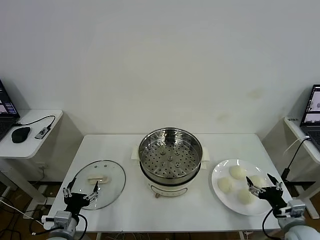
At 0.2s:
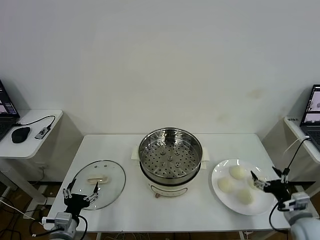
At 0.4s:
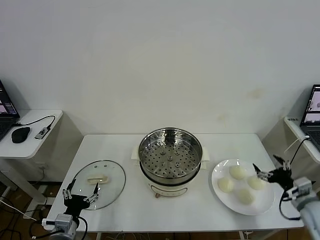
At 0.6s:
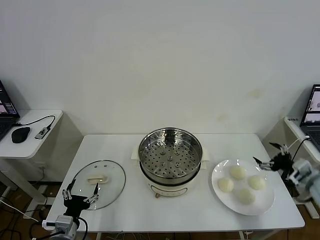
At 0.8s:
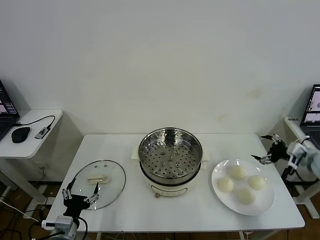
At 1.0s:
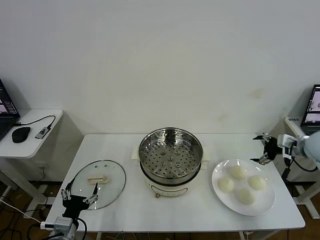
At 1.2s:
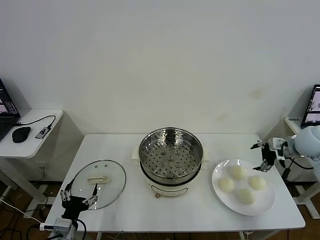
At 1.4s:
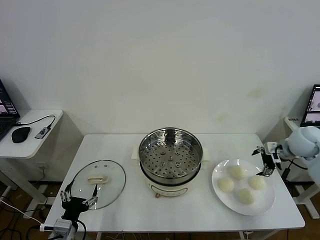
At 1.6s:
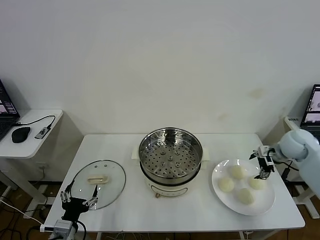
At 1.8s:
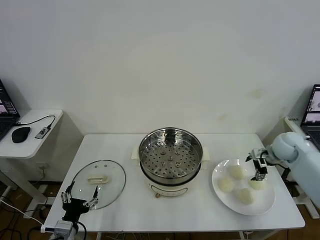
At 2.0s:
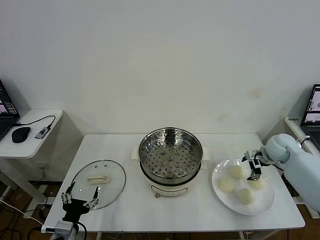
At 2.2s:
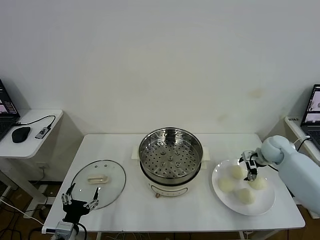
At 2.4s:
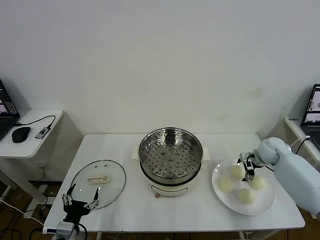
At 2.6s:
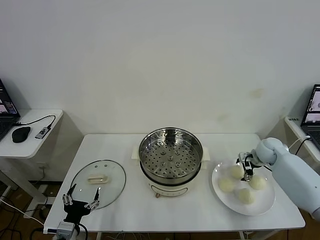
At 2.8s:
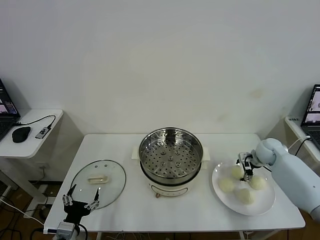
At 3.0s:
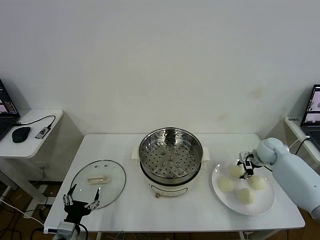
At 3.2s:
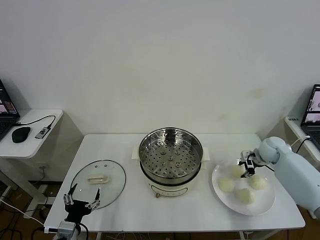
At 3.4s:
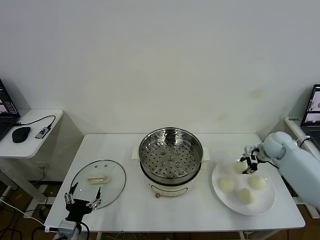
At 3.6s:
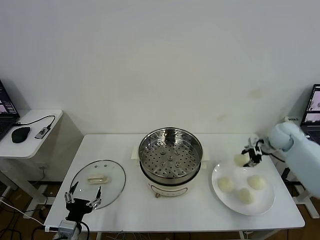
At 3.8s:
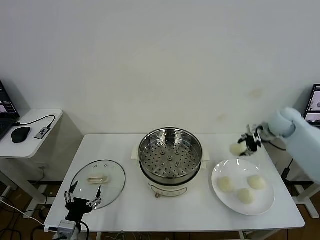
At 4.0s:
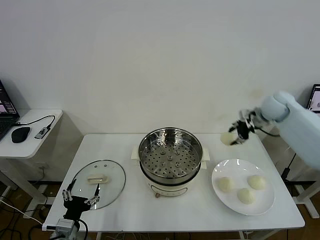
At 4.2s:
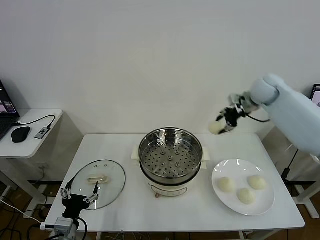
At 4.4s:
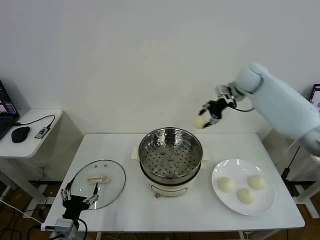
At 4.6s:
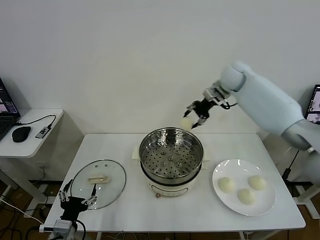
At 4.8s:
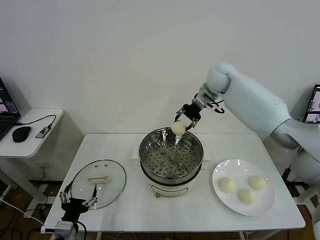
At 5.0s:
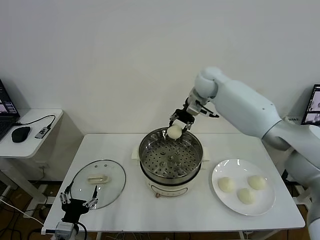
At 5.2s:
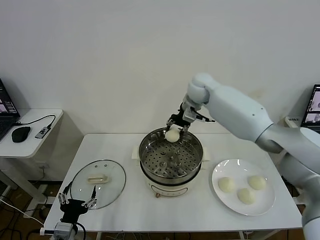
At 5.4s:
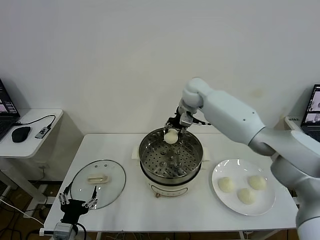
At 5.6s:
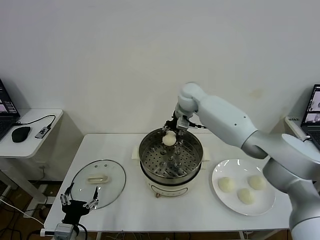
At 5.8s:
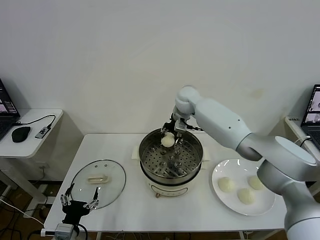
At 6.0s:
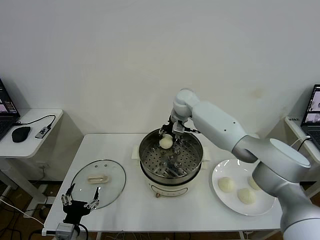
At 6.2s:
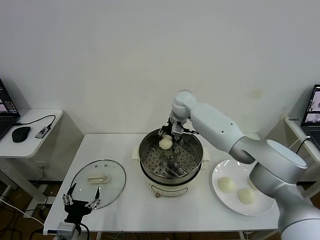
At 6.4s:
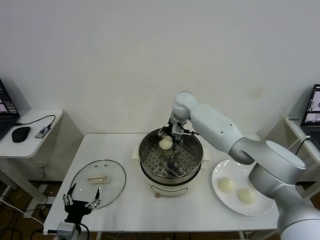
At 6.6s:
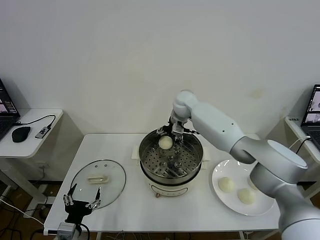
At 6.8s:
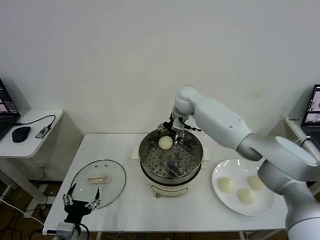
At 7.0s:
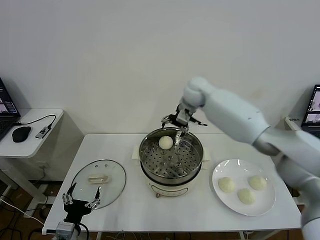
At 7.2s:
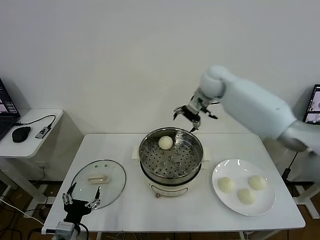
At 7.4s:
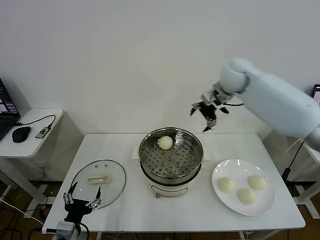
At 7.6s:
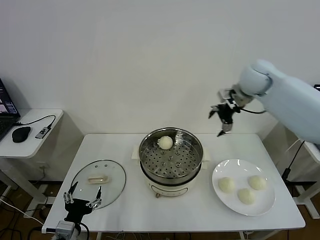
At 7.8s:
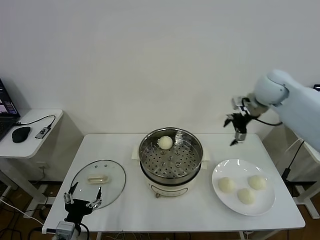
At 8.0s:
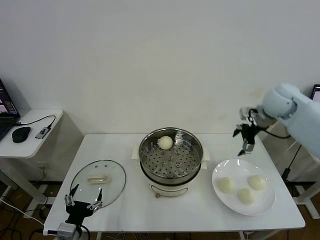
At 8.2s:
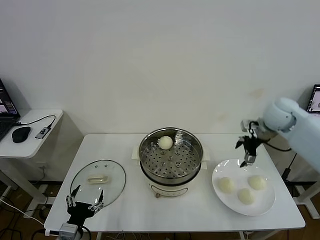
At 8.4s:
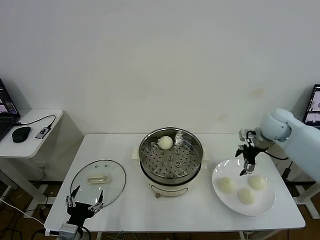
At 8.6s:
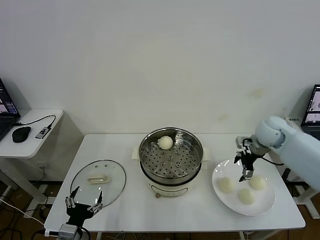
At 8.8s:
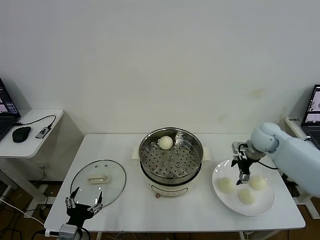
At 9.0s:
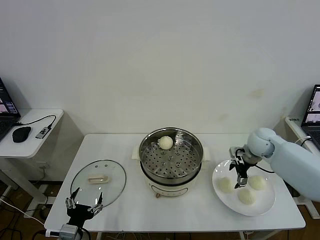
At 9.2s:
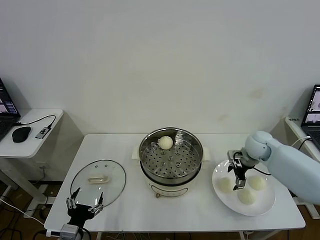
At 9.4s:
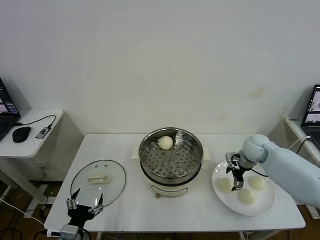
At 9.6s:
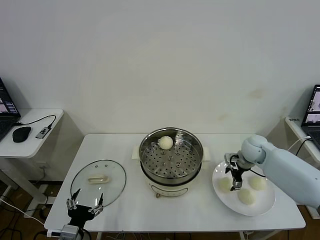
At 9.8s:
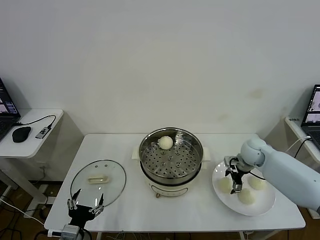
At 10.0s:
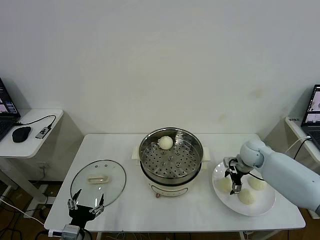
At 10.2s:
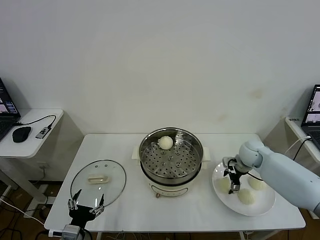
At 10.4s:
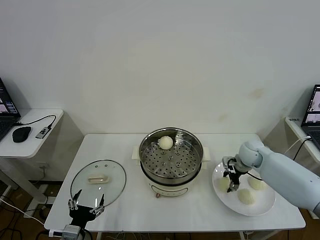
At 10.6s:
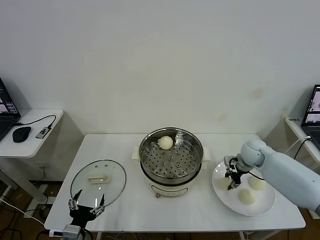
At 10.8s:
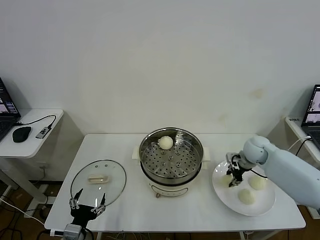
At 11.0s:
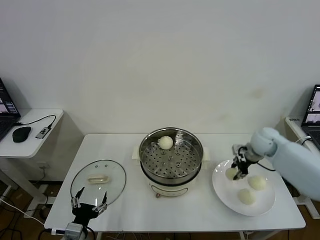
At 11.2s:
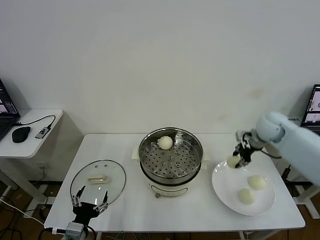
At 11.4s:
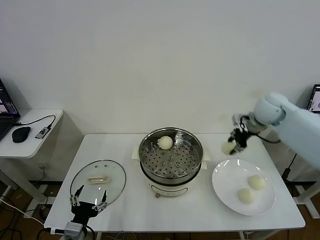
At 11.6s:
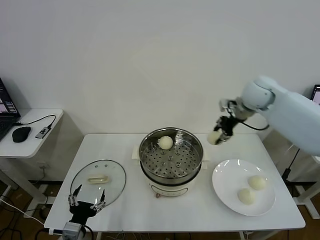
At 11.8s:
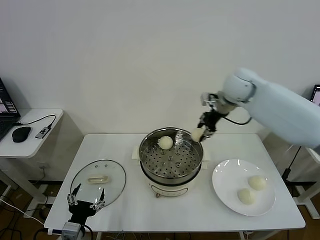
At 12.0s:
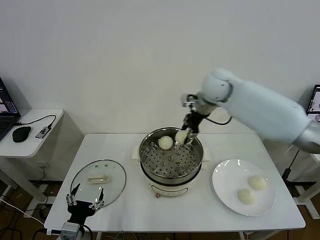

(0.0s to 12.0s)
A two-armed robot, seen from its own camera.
Task of the whole recording: take steamed baozi put them in steamer then cover it.
Step, 0.0s - 3.0s: Grasp the baozi in the plate with right gripper.
Step, 3.2s - 6.6s: Place the baozi on the steamer with right gripper.
Step, 6.8s - 10.4s: Grasp the baozi in the plate with right gripper.
1.6s - 3.0s: The right gripper goes roughly 5 cm downward, and closes.
3.0s - 4.4s: The right gripper travels upward, to the left and forward by approximately 30 cm.
4.4s - 6.0s: The right gripper shifts roughly 20 cm to the left and downward.
6.0s - 7.6s: The right gripper goes roughly 25 cm to the right and upward, and opens up.
7.6s - 9.0s: The right gripper shifts approximately 20 cm downward.
9.0s - 10.4s: The right gripper travels downward by roughly 5 cm, and closes up.
10.4s - 12.0s: The right gripper heads upward and to the left, covering about 30 cm.

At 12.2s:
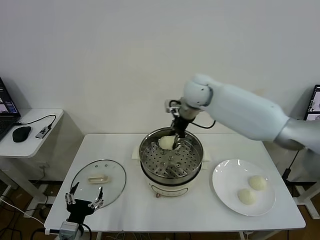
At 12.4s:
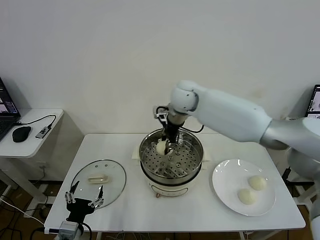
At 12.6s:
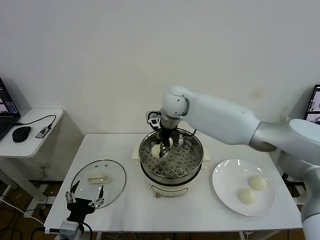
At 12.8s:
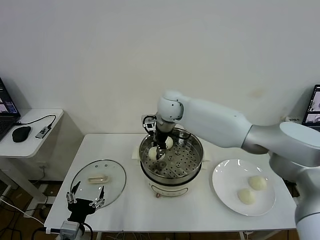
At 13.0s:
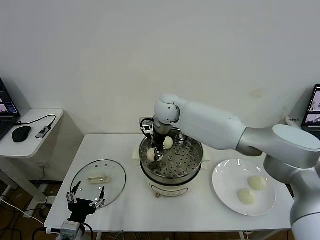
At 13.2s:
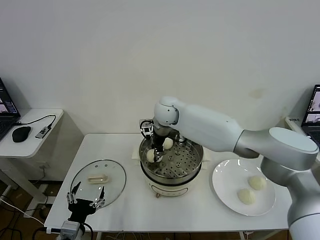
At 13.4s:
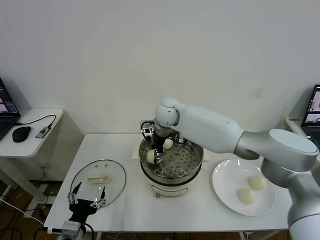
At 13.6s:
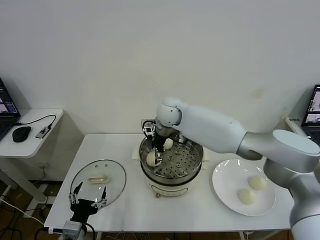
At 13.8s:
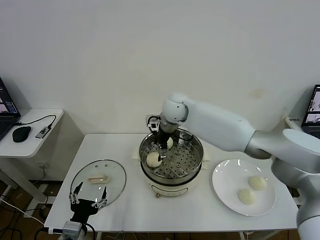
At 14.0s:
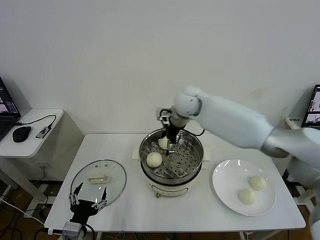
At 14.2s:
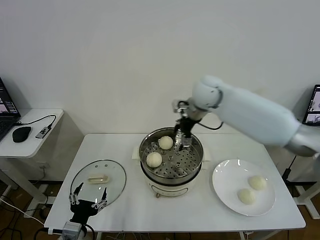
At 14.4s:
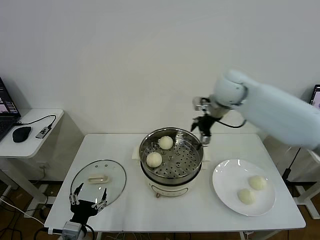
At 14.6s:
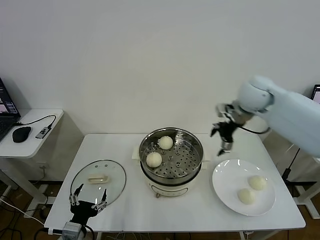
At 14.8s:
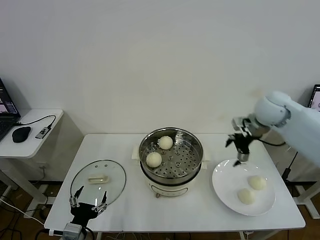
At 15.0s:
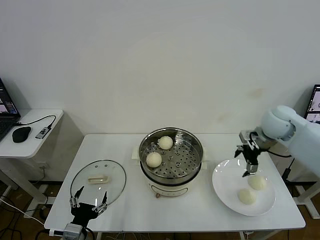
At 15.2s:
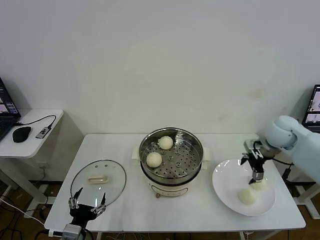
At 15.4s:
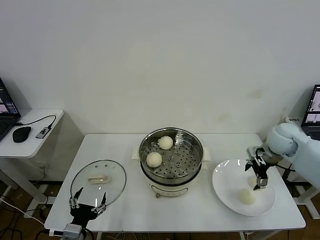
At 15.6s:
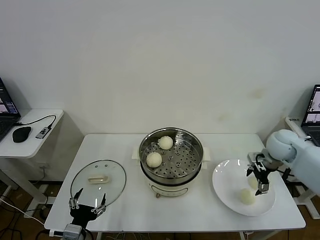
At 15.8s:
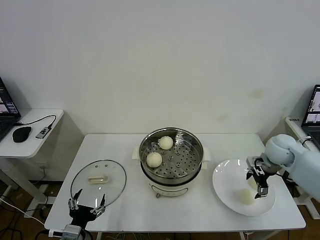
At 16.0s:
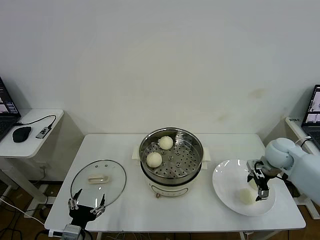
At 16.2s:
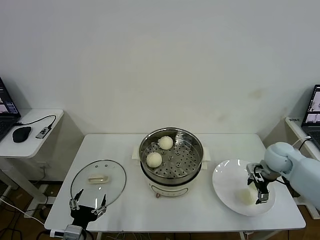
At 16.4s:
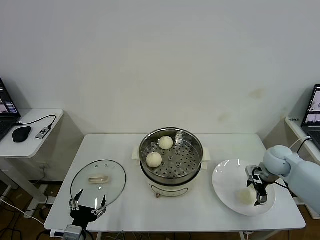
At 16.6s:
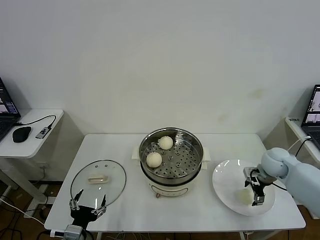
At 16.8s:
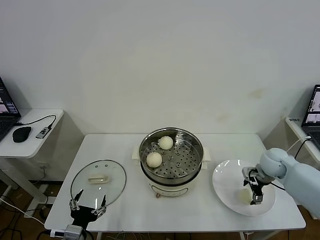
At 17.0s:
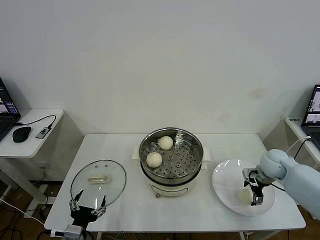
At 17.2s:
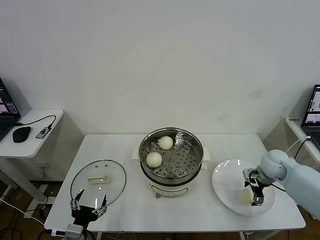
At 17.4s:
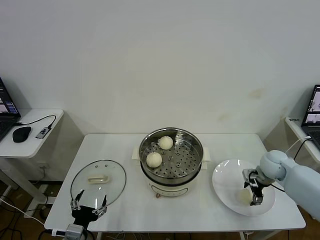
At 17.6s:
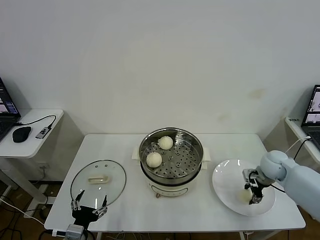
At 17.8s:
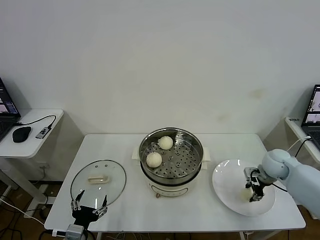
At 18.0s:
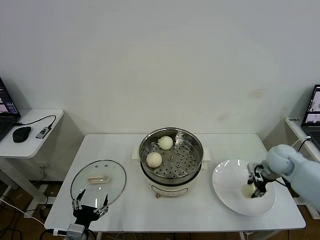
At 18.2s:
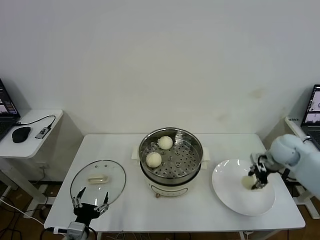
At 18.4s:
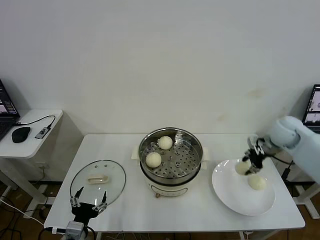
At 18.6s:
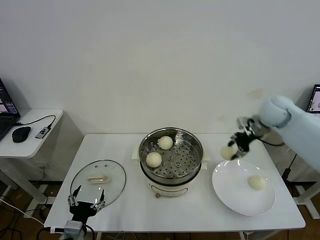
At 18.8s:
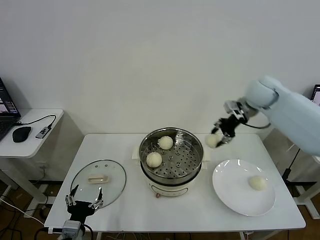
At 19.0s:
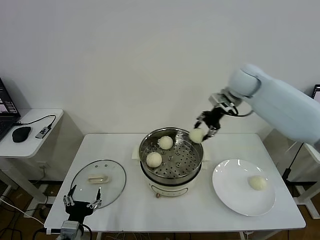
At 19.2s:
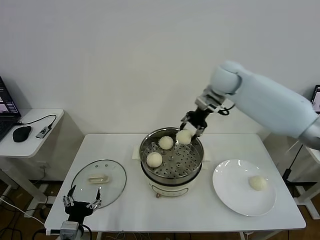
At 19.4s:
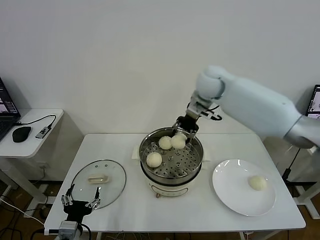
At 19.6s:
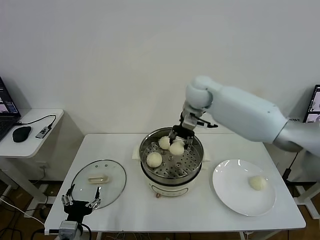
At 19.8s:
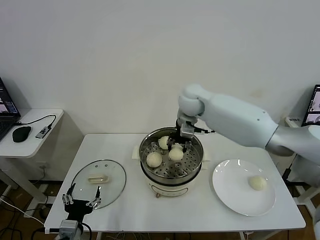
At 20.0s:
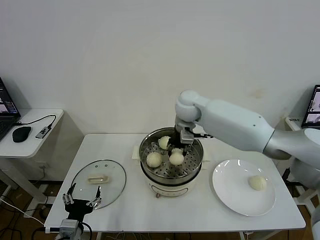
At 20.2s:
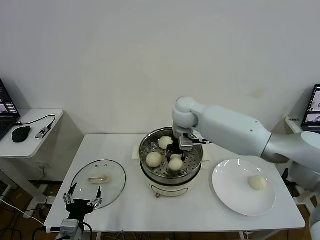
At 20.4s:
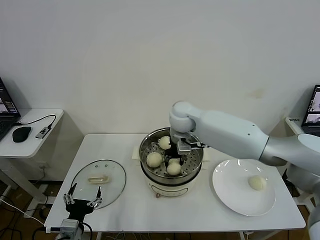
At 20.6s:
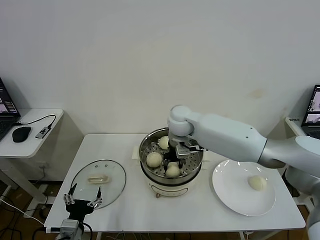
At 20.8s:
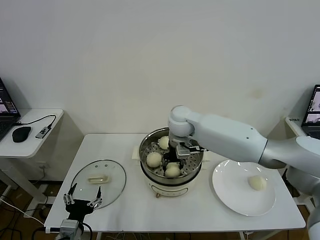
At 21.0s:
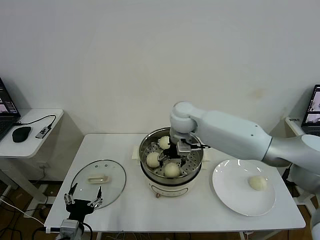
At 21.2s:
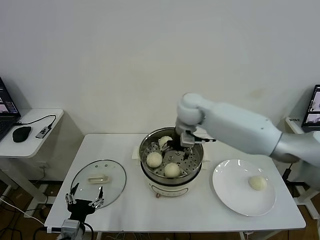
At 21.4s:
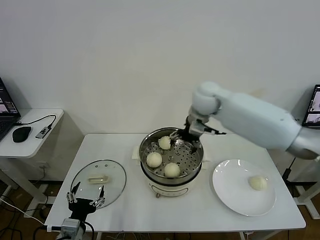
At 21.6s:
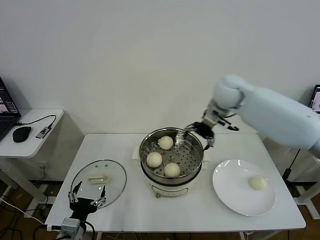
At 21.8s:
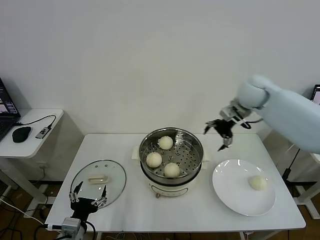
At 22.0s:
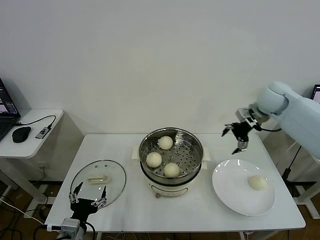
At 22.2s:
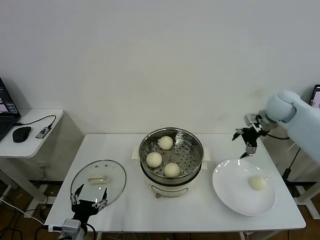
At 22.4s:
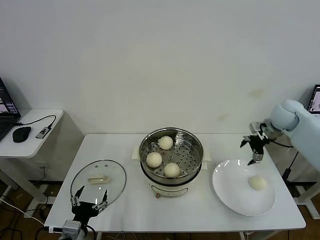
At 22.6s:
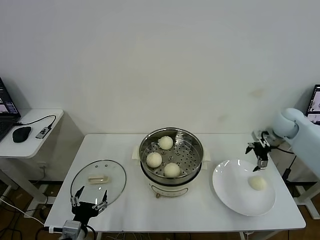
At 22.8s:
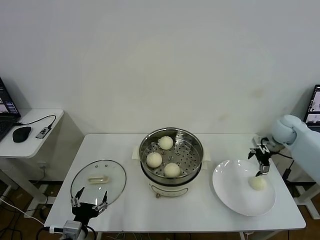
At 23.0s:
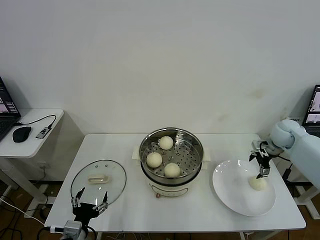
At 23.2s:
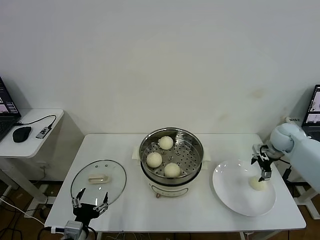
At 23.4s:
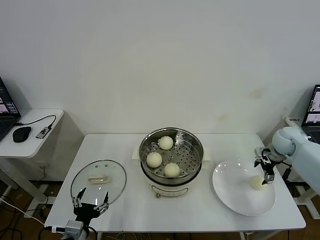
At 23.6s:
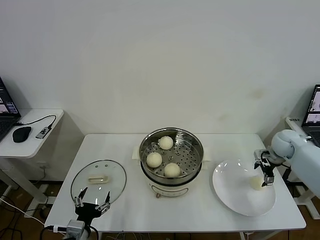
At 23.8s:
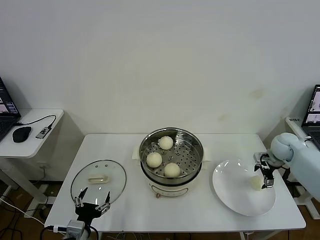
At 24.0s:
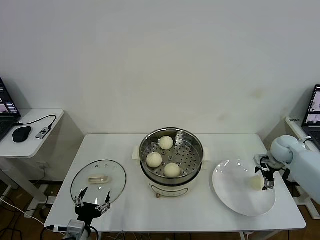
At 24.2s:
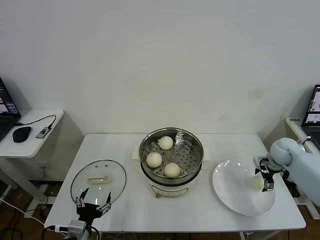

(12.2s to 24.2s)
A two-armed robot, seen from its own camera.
Task of the whole recording: take steamed baozi put them in steamer then cover it.
Step, 14.0s - 17.6s: Grasp the baozi in the plate with right gripper.
Step, 18.0s - 21.0s: Place the baozi on the steamer with right gripper.
12.2s - 13.8s: The right gripper opens.
13.8s - 15.2s: The right gripper goes approximately 30 cm to the right.
15.2s - 16.6s: The right gripper heads downward, covering about 10 cm.
16.6s - 18.2s: The right gripper shifts some 10 cm upward, and closes up.
18.2s - 19.8s: The right gripper moves to the left, some 30 cm.
19.8s - 21.2s: The right gripper opens its fingers.
21.2s - 22.6s: The right gripper travels to the right by about 35 cm.
22.6s - 24.2s: The right gripper shifts approximately 10 cm downward.
